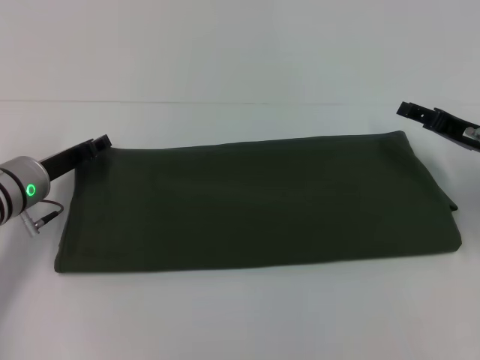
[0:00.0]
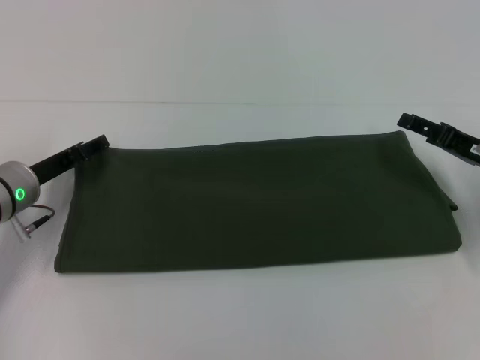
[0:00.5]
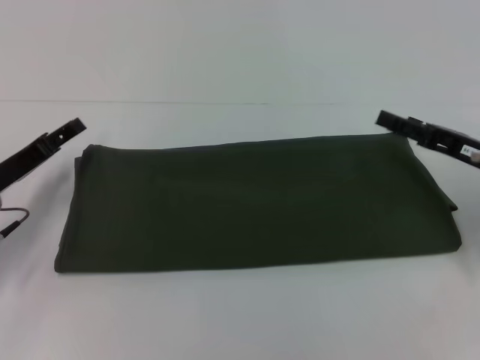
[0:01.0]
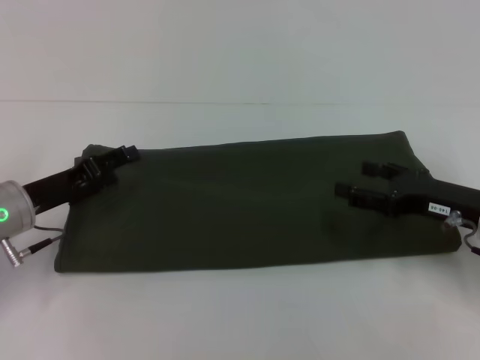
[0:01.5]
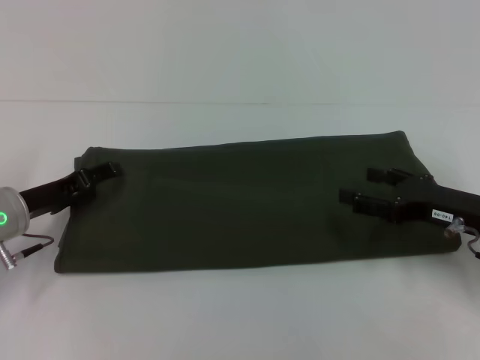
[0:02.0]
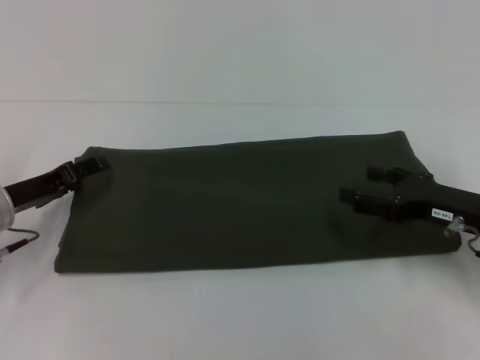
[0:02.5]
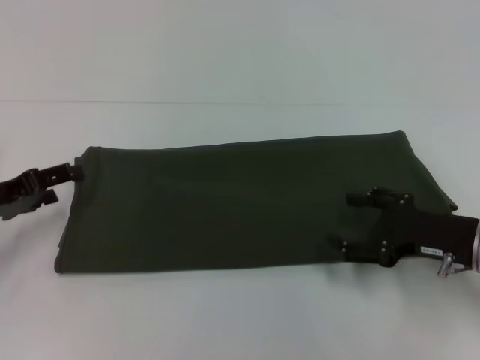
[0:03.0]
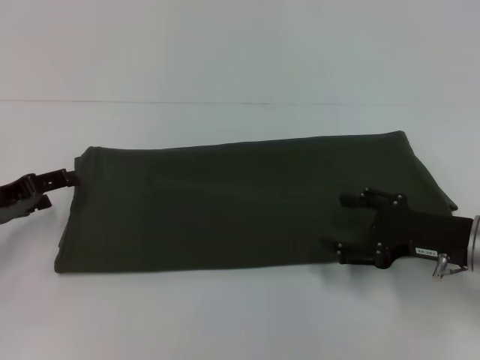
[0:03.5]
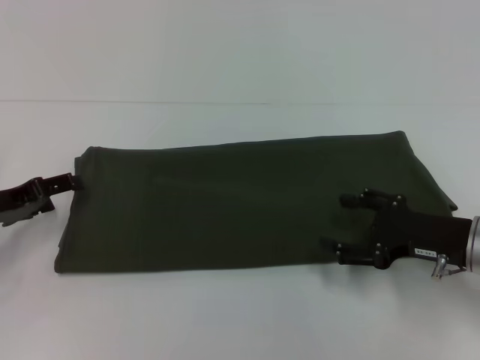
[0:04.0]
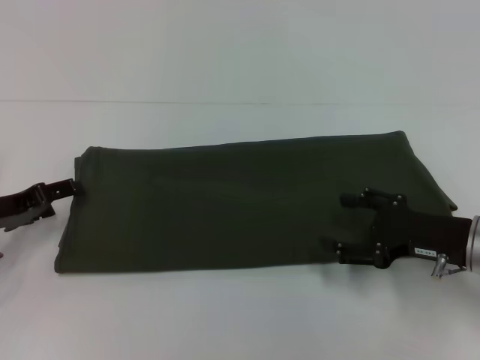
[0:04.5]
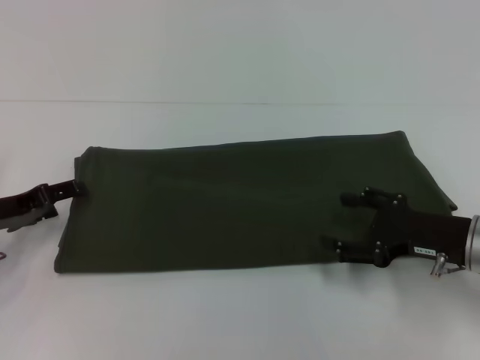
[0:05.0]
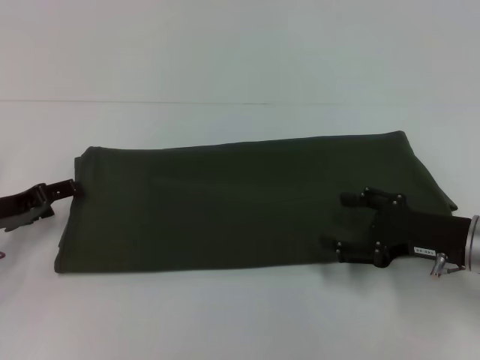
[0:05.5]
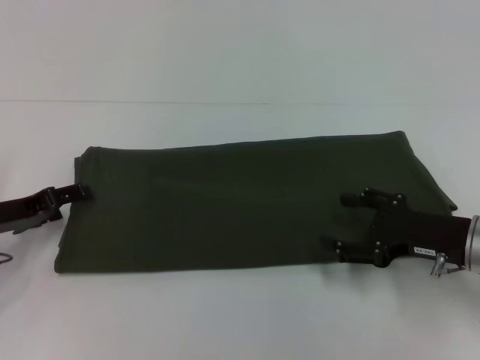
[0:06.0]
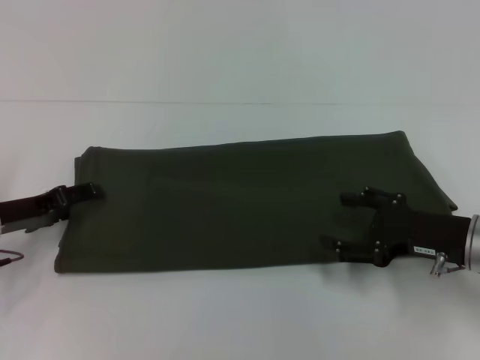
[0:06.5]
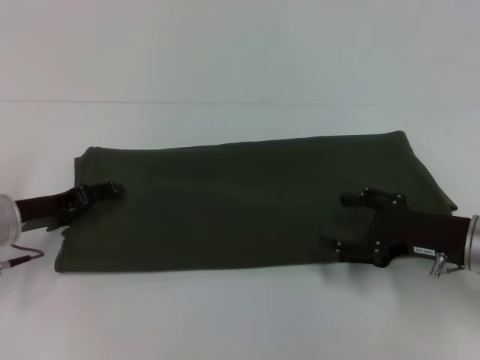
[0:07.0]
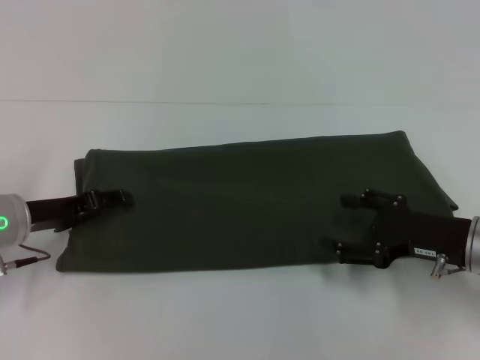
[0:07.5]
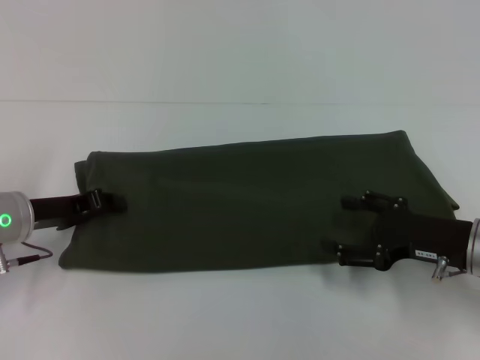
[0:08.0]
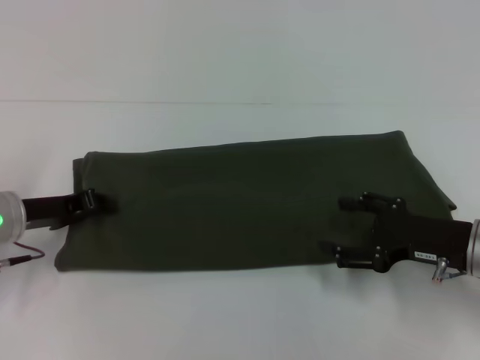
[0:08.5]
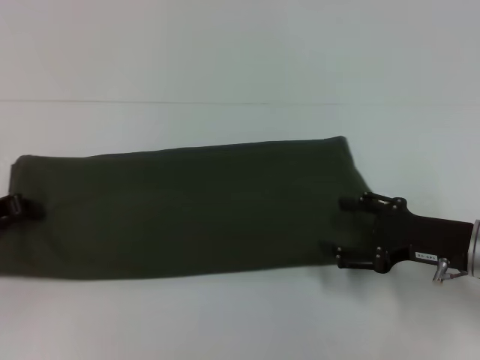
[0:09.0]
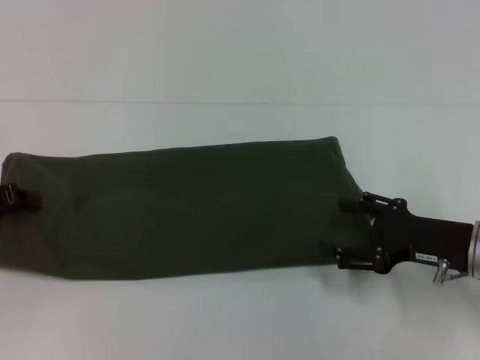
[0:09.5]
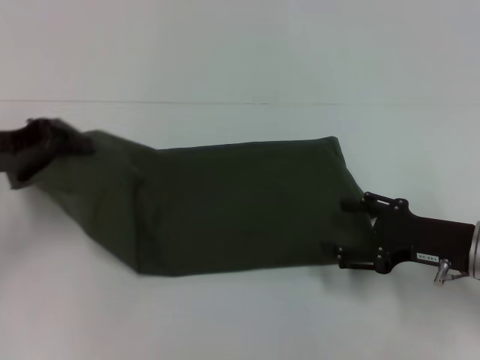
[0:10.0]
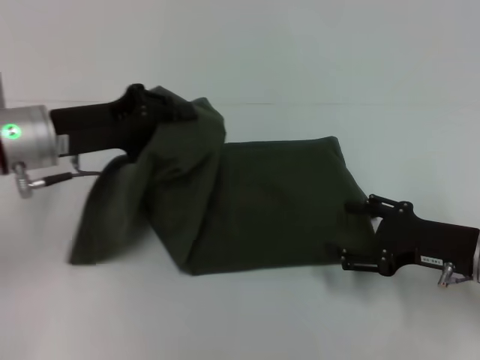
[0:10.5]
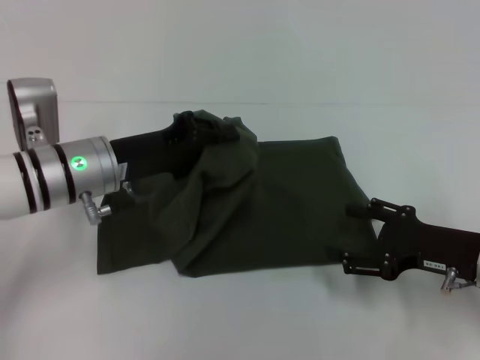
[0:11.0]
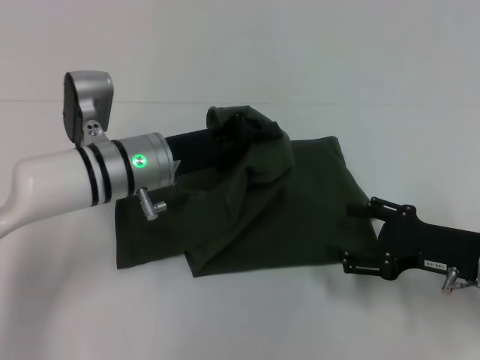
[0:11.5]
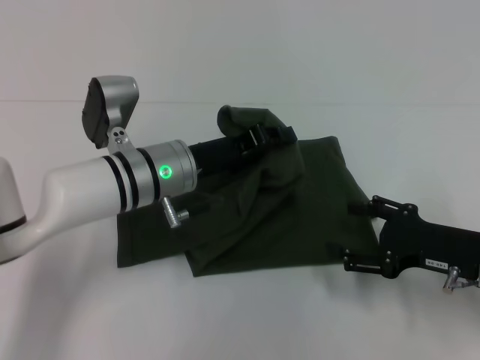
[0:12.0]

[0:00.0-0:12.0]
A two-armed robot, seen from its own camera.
0:00.0 to 0:02.0: The right gripper moves backward, approximately 5 cm, and opens its fingers. The left gripper opens.
0:02.0 to 0:04.0: The left gripper shifts by roughly 5 cm.
0:04.0 to 0:06.0: The grippers move only a little.
0:06.0 to 0:08.0: The left gripper closes up.
0:08.0 to 0:10.0: The left gripper heads upward, covering roughly 10 cm.
0:10.0 to 0:12.0: The left gripper is displaced to the right by some 20 cm.

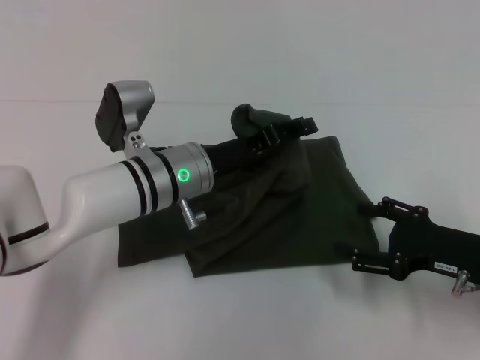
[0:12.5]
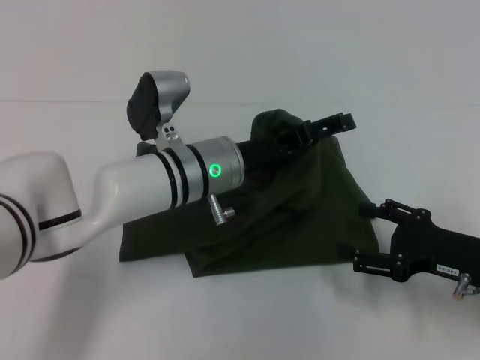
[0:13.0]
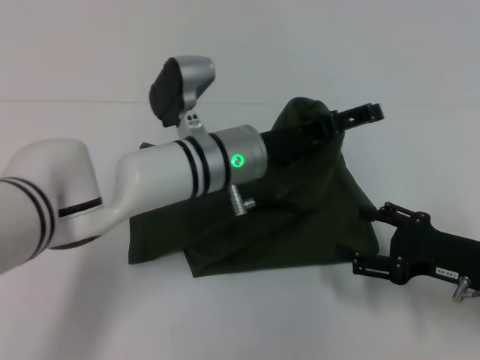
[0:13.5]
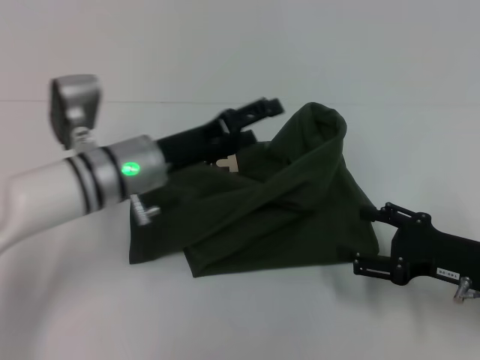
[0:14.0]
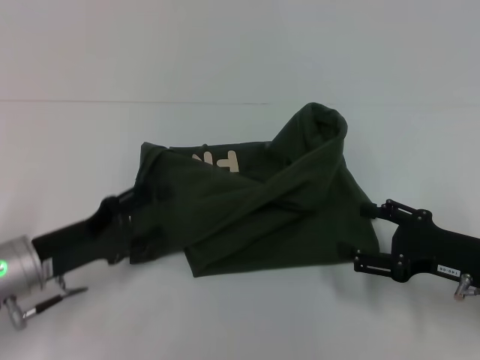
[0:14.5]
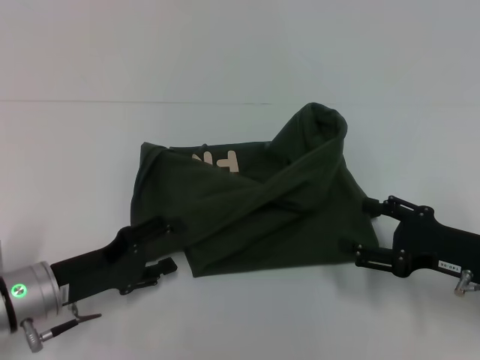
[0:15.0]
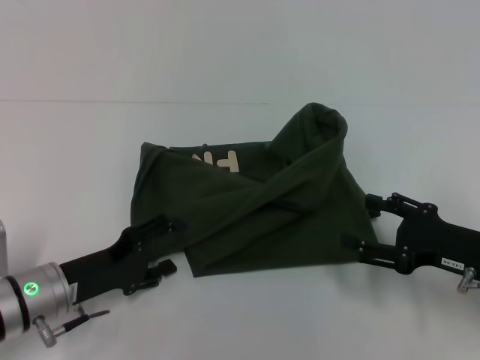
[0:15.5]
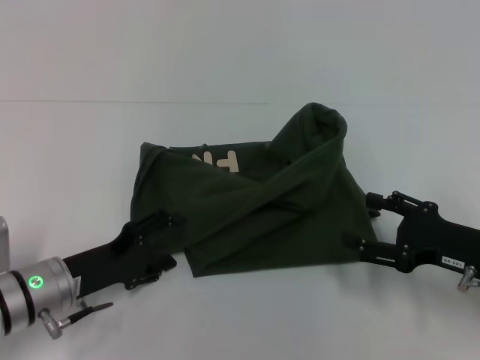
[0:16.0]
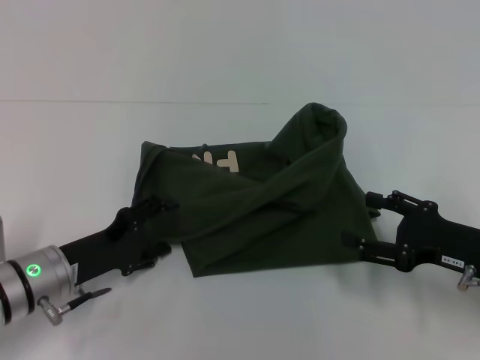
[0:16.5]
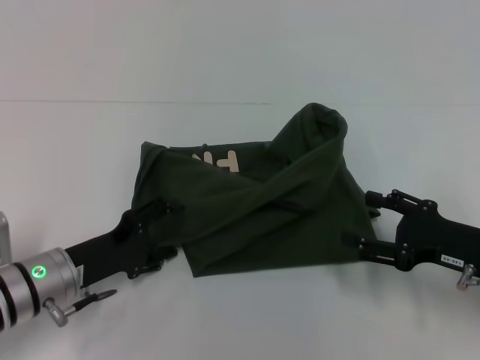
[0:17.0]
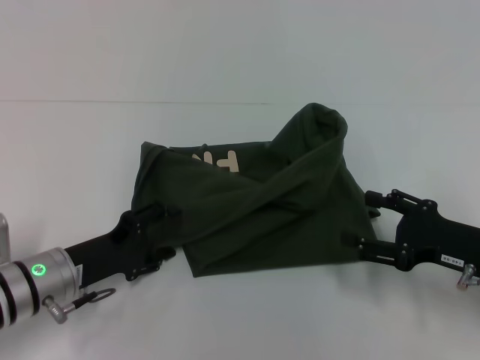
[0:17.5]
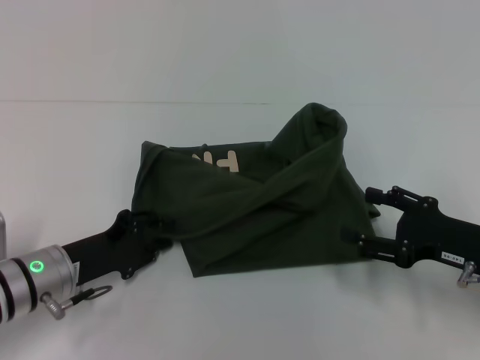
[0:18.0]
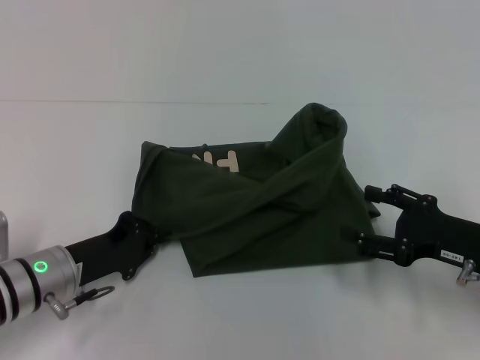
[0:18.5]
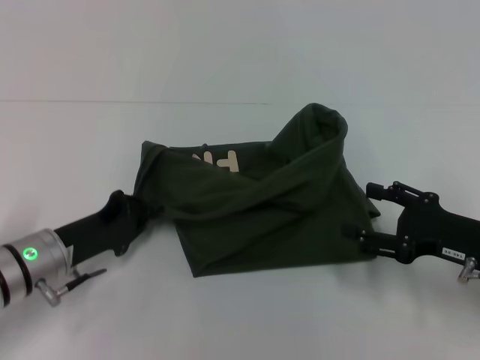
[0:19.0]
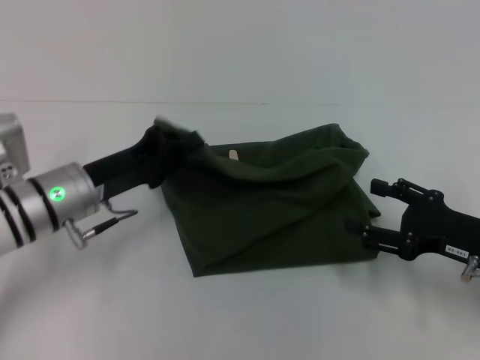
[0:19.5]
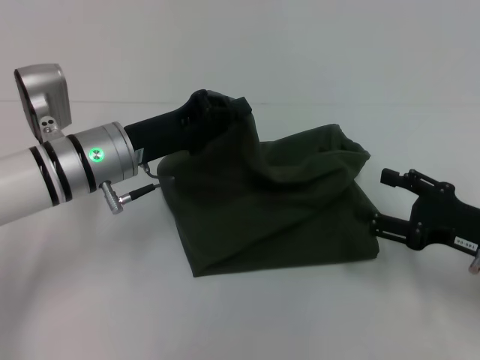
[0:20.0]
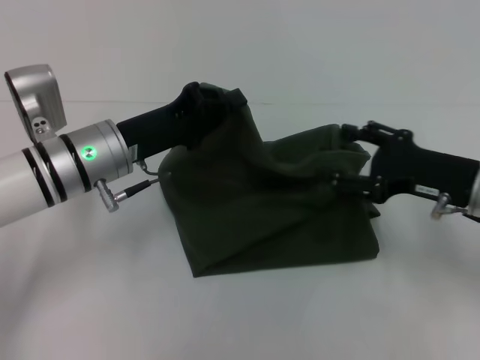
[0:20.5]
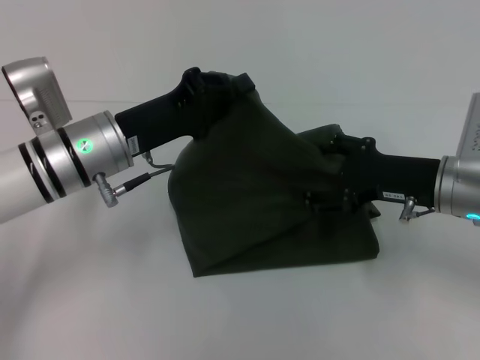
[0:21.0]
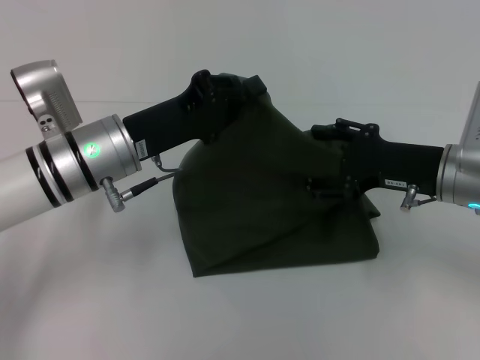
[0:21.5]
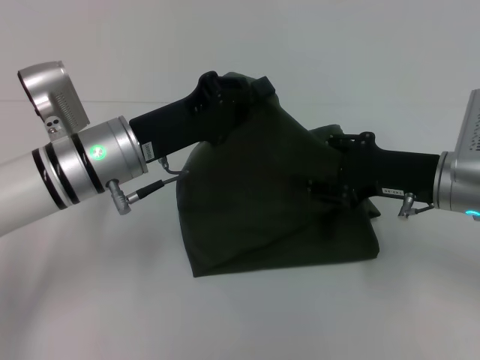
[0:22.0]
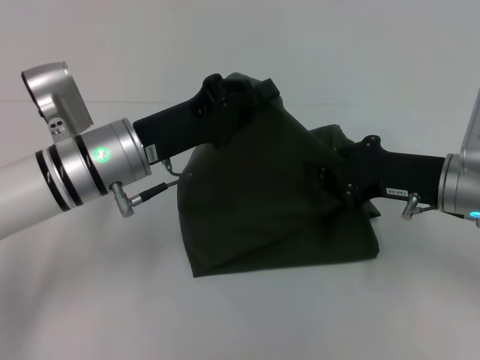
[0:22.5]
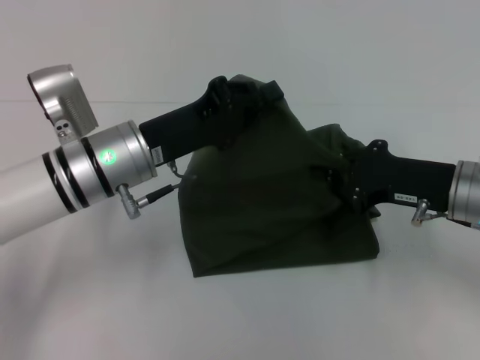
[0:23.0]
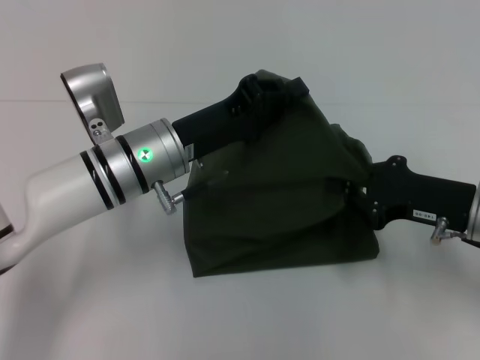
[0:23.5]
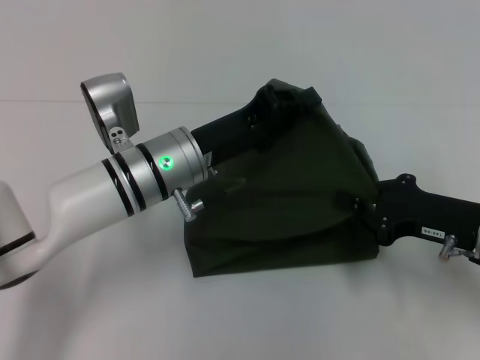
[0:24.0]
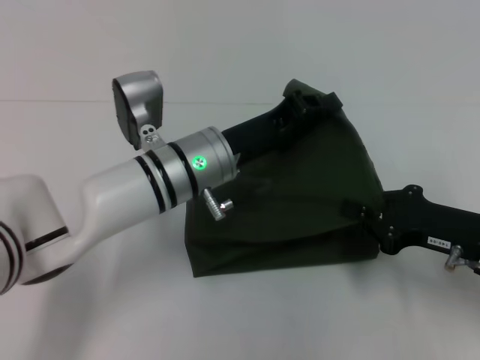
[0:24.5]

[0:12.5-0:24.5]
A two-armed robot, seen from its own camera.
0:12.5 to 0:14.5: The left gripper shifts roughly 20 cm to the left and backward, and opens its fingers.
0:14.5 to 0:16.5: There are only small adjustments of the grippers.
0:16.5 to 0:18.5: The left gripper closes up.
0:18.5 to 0:20.5: The left gripper goes approximately 15 cm upward, forward and to the right. The right gripper ends up some 5 cm from where it was.
0:20.5 to 0:22.5: The right gripper closes its fingers.
0:22.5 to 0:24.5: The left gripper shifts some 10 cm to the right, while the right gripper is displaced backward by some 5 cm.

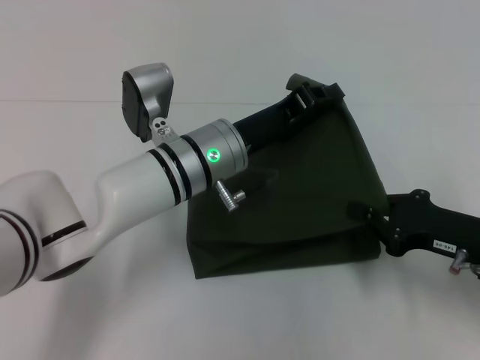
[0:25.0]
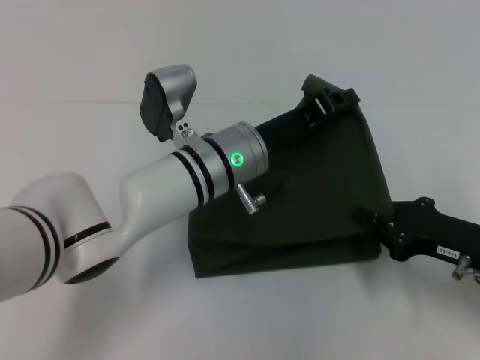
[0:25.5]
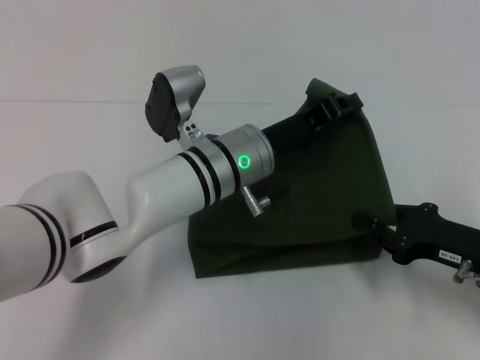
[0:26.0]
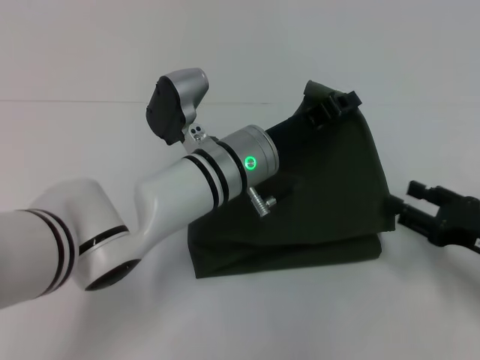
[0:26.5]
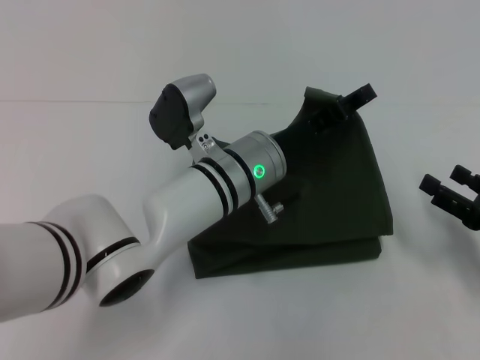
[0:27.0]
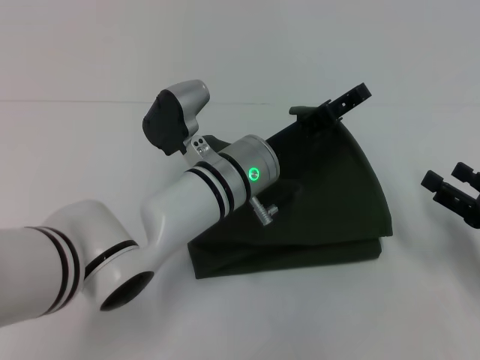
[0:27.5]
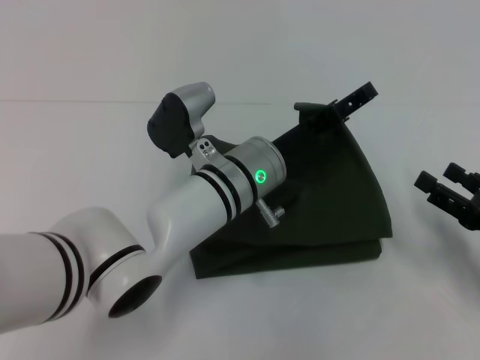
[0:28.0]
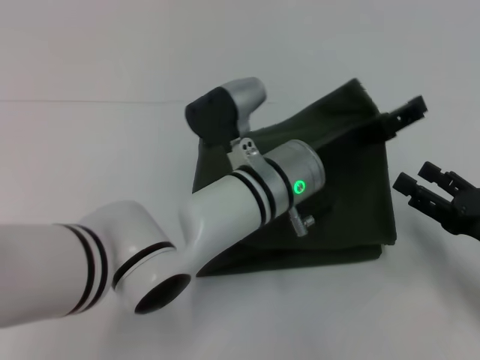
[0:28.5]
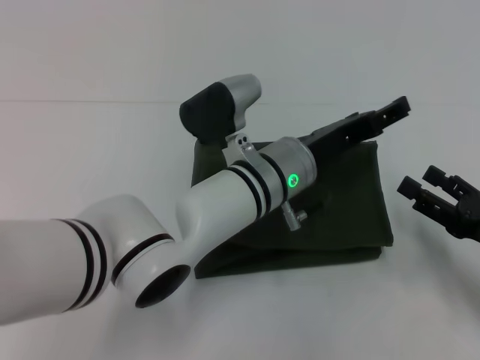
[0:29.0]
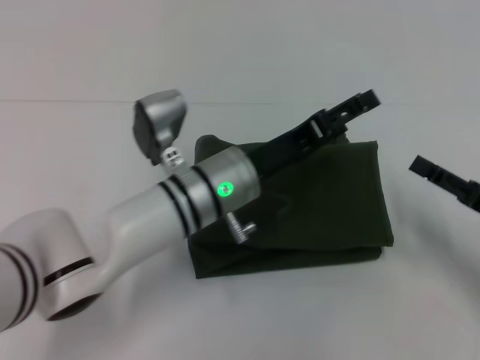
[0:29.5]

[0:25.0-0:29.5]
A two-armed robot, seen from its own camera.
0:25.0 to 0:27.0: The left gripper opens its fingers. The right gripper heads to the right, covering roughly 5 cm, and opens its fingers.
0:27.0 to 0:29.5: The left gripper opens up.
